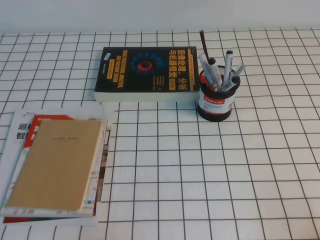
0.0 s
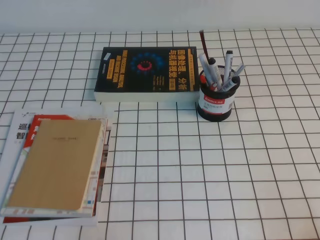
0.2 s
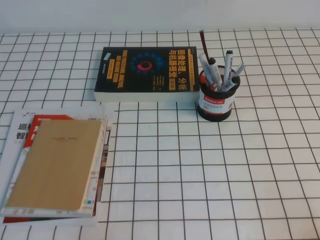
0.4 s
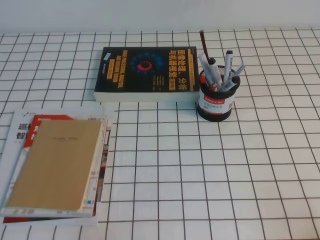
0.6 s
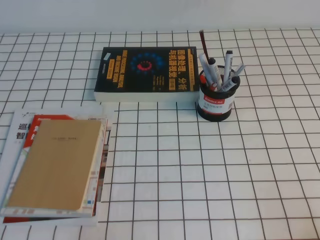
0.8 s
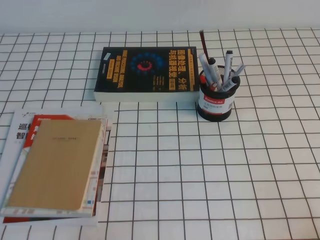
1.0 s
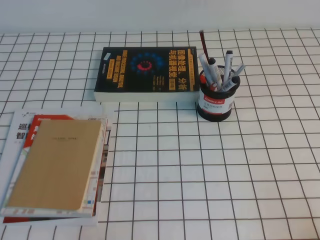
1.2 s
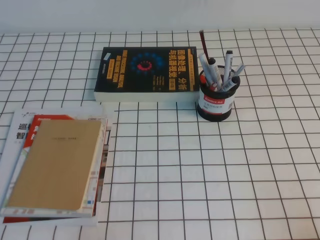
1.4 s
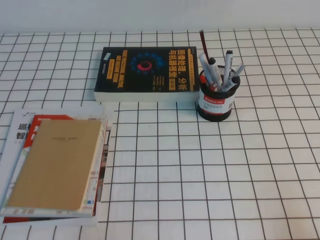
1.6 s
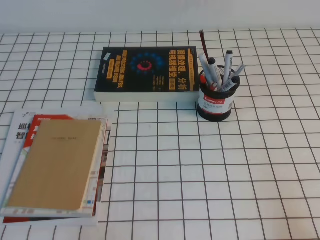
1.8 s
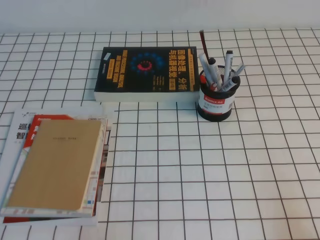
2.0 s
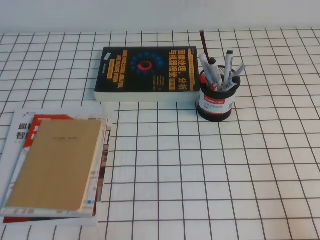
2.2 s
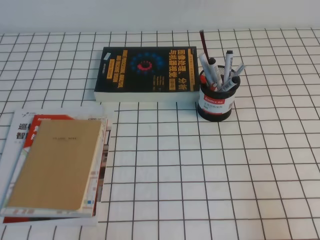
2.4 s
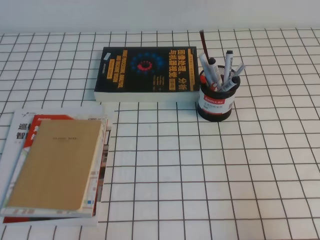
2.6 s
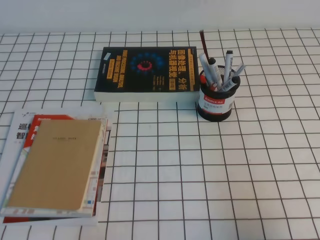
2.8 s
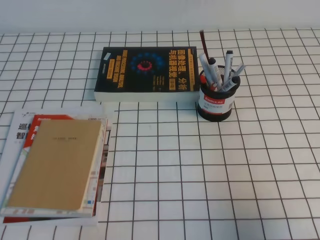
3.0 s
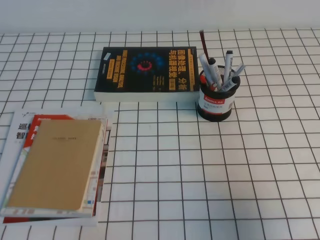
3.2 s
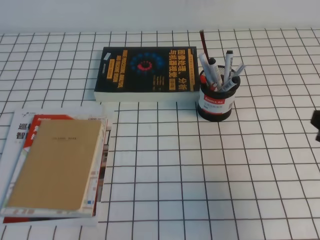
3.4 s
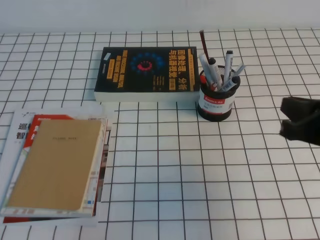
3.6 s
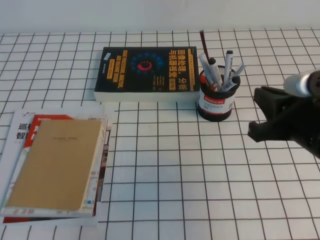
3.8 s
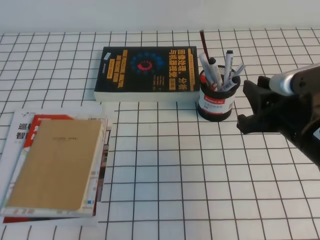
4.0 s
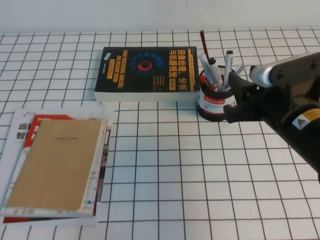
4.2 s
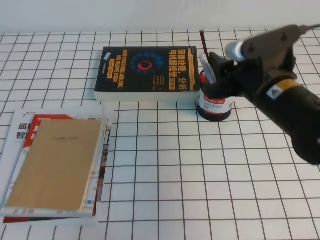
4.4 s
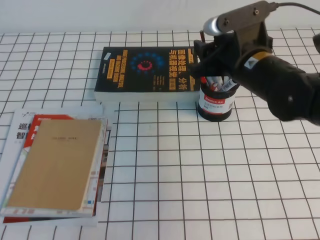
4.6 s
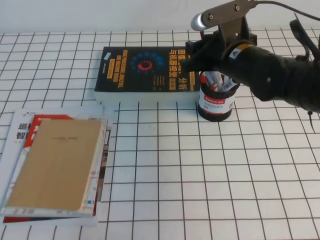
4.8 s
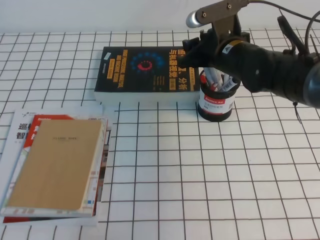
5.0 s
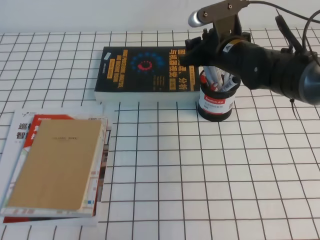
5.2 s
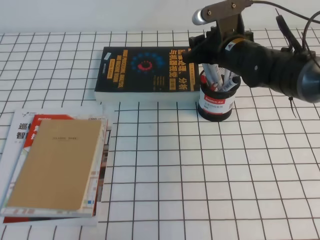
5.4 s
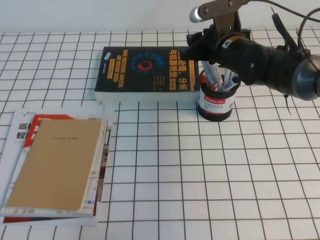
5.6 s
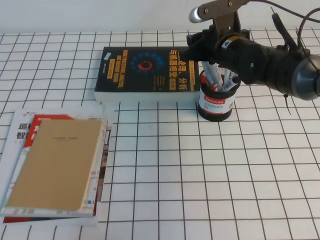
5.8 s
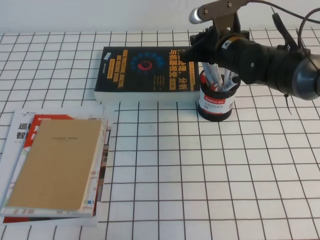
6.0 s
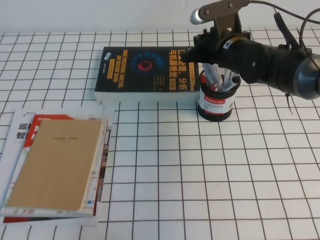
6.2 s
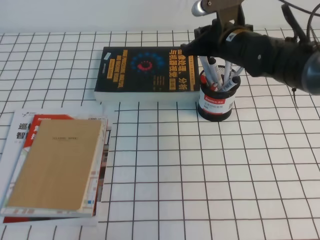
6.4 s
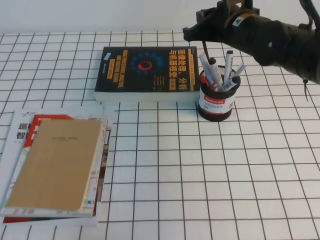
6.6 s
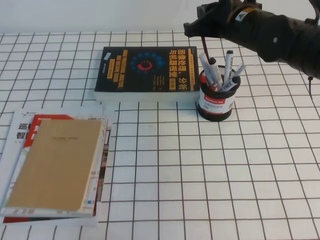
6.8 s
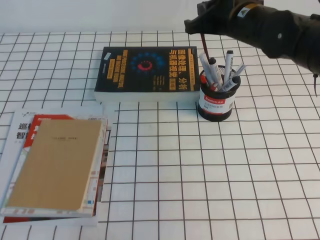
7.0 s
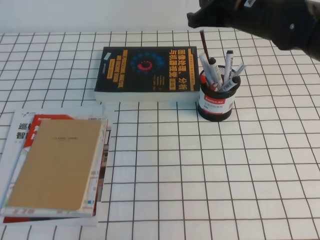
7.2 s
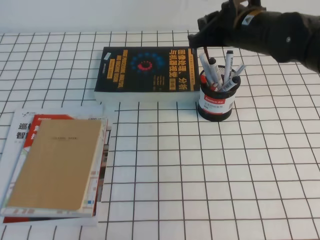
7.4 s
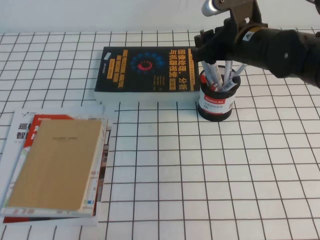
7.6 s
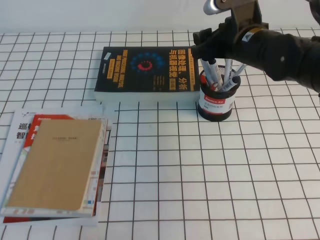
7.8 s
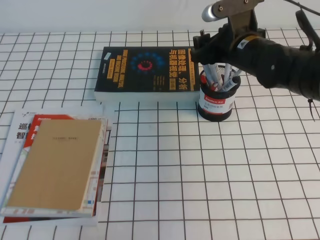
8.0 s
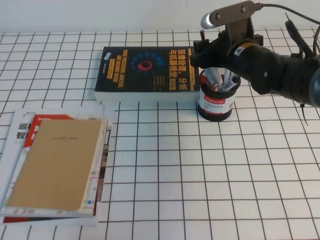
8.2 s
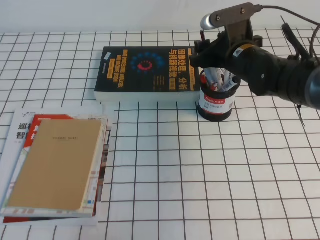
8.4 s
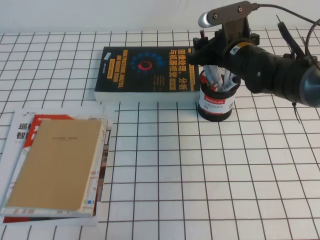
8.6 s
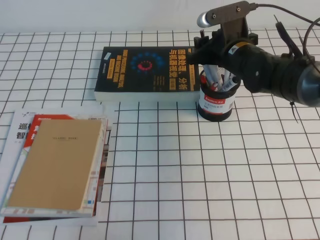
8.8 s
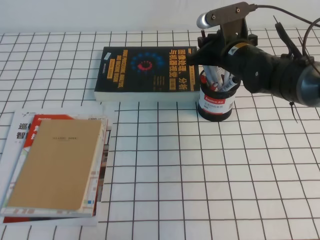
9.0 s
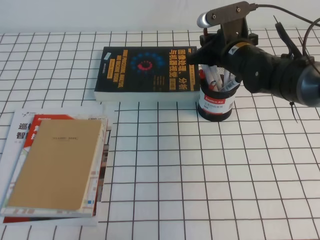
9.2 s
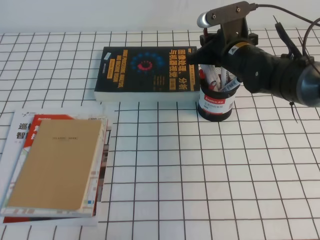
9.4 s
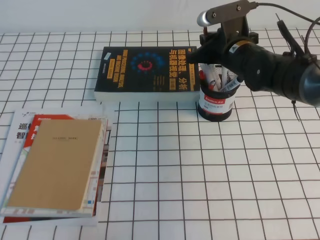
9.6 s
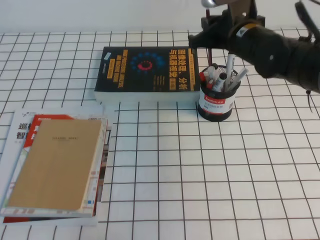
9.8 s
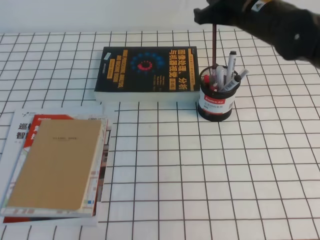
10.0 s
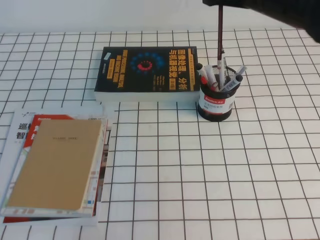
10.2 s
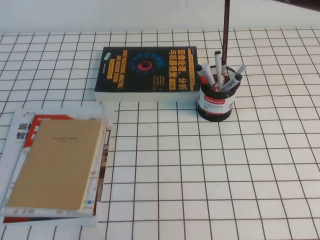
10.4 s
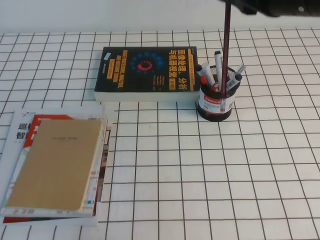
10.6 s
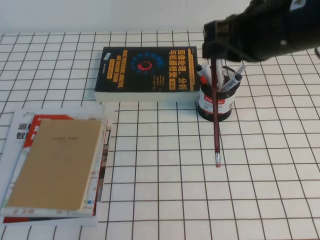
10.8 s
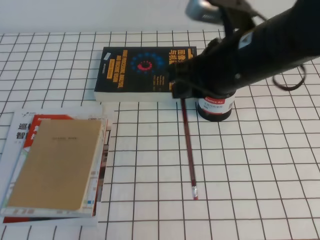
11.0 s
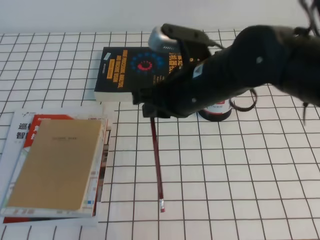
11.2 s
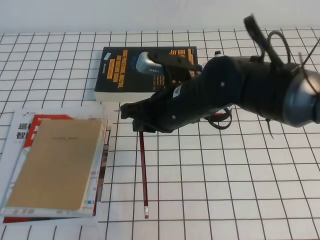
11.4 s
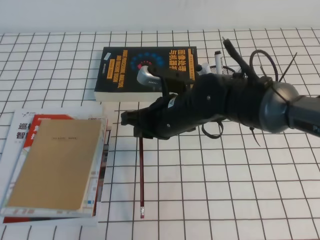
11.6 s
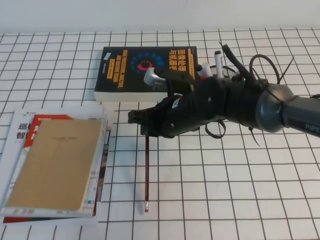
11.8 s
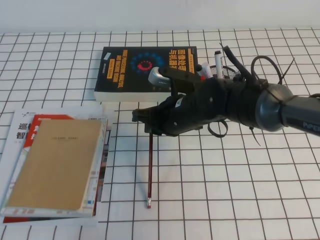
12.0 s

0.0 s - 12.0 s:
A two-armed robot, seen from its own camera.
1.6 s - 3.0 s: The right gripper is displaced upward and forward by about 10 cm.
3.0 s - 4.4 s: The right gripper moves to the left and forward, some 20 cm, and opens its fingers.
4.4 s - 6.0 s: The right gripper is displaced forward by roughly 15 cm, and closes its fingers.
6.0 s - 7.6 s: The right gripper travels upward by about 5 cm.
7.6 s - 9.0 s: The right gripper moves downward, some 5 cm, and opens, then closes once more.
9.0 s - 10.4 s: The right gripper heads upward and backward, covering approximately 20 cm.
10.4 s - 12.0 s: The right gripper moves downward and to the left, some 25 cm.

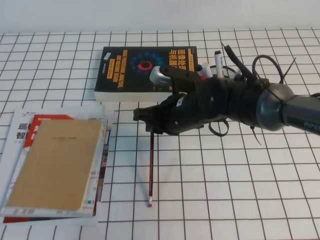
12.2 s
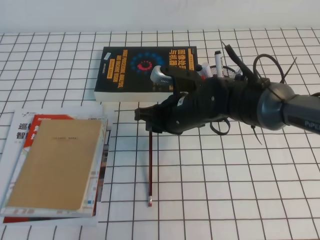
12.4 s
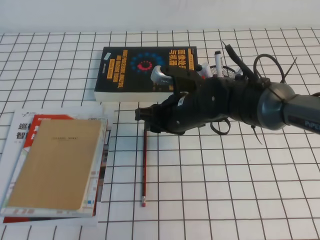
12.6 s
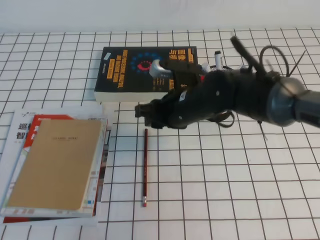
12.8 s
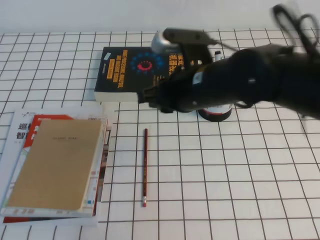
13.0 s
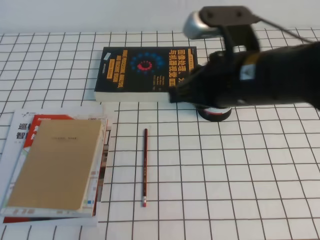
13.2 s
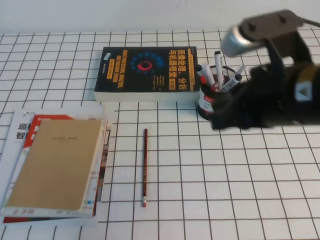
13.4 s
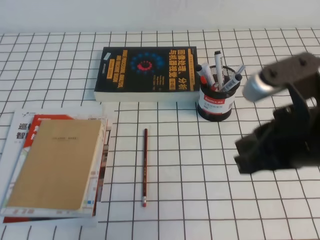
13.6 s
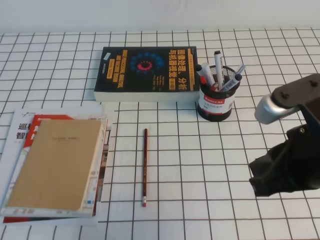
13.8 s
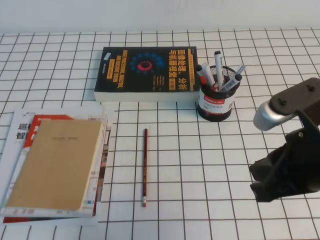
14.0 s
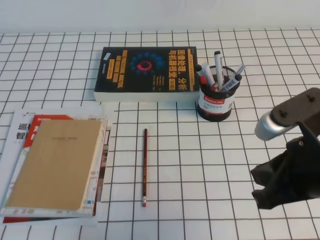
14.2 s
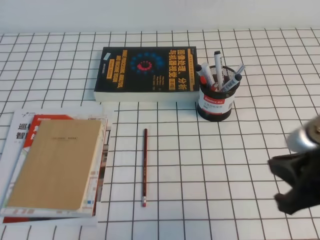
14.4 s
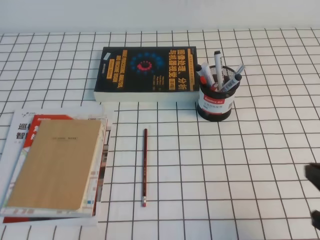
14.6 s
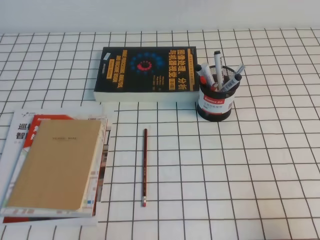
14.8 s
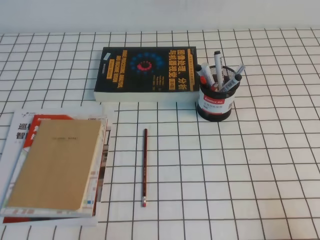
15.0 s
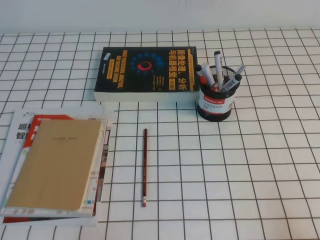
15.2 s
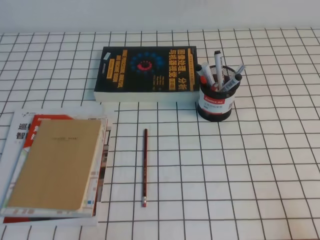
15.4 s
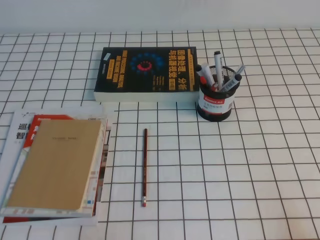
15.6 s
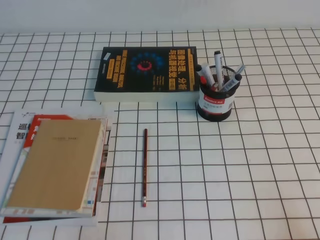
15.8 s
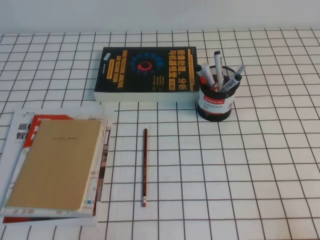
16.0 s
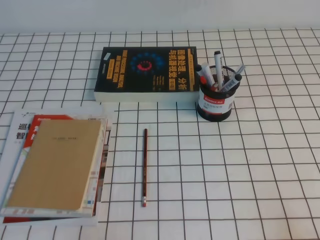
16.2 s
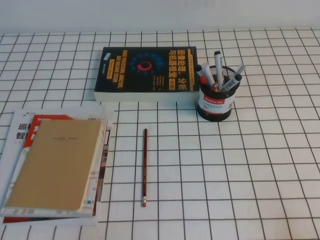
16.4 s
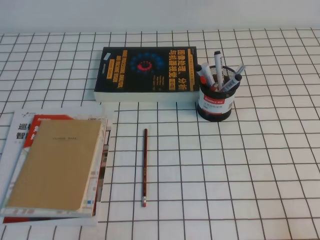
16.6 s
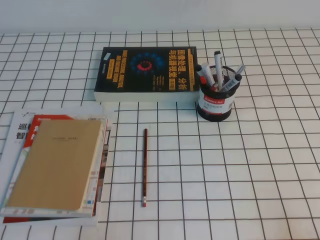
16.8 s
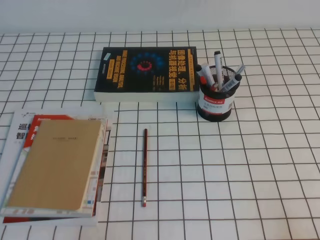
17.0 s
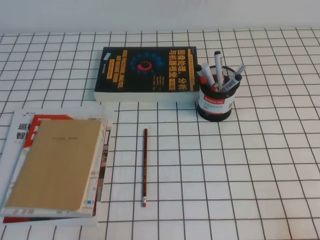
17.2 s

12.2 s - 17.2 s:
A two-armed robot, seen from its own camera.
Step, 12.2 s - 17.2 s: Pick up the pen from the pen holder.
12.2 s - 13.8 s: The right gripper shifts about 25 cm backward, to the right and upward.
13.8 s - 15.6 s: The right gripper moves downward, to the right and backward, approximately 25 cm.

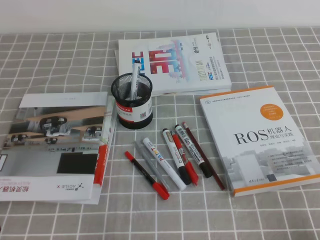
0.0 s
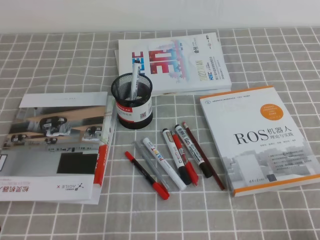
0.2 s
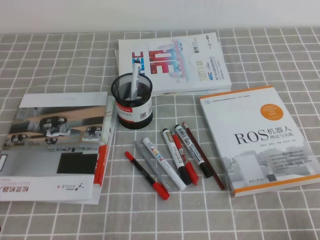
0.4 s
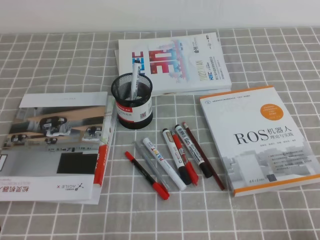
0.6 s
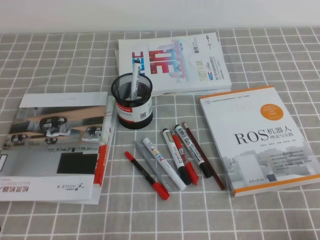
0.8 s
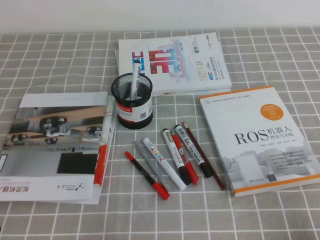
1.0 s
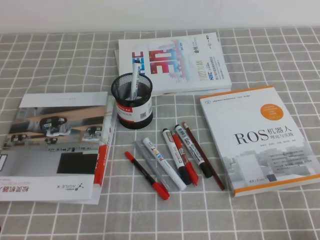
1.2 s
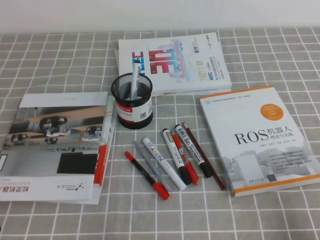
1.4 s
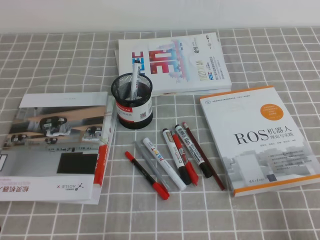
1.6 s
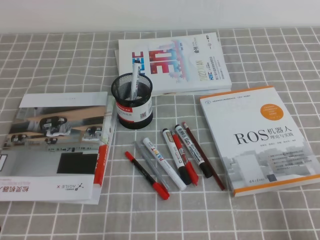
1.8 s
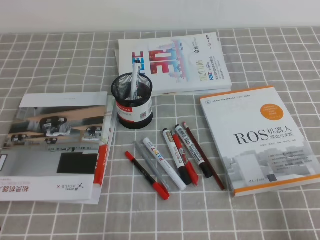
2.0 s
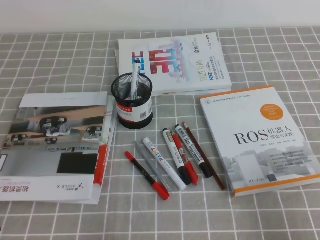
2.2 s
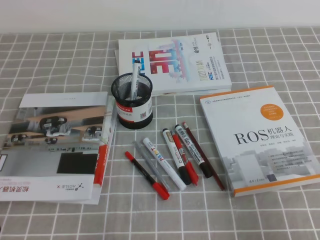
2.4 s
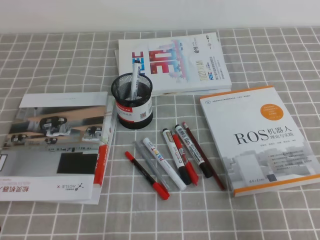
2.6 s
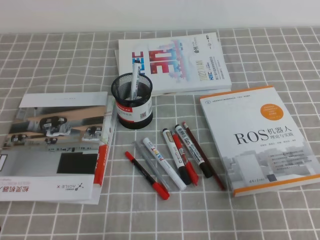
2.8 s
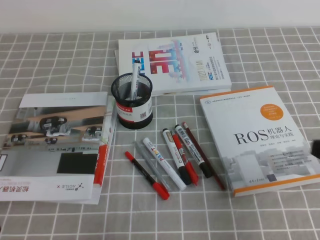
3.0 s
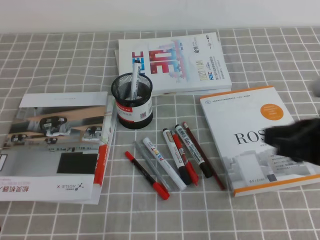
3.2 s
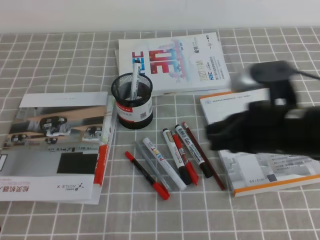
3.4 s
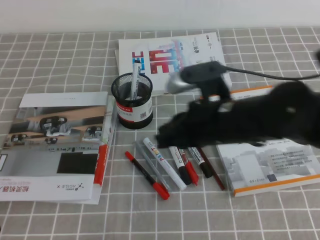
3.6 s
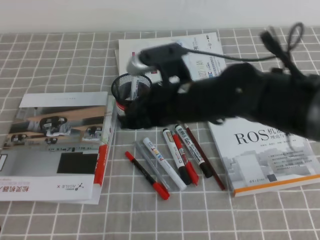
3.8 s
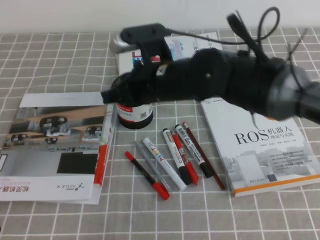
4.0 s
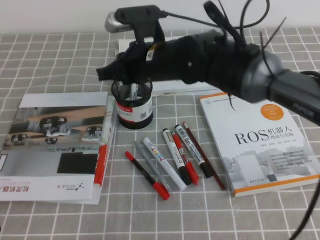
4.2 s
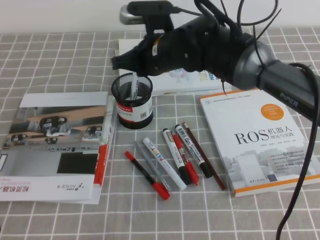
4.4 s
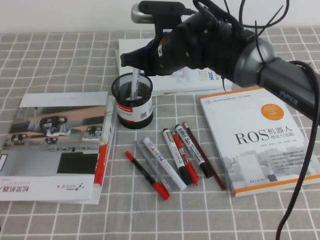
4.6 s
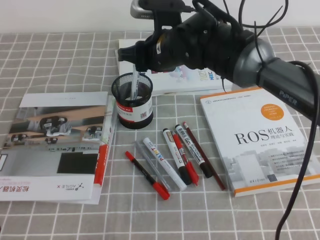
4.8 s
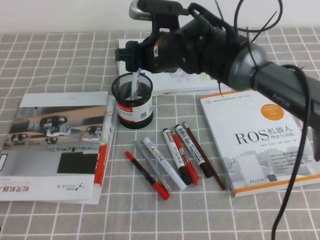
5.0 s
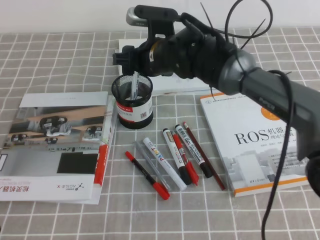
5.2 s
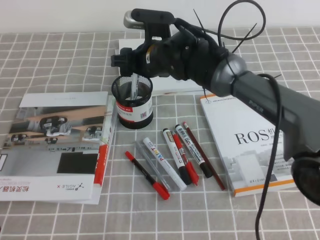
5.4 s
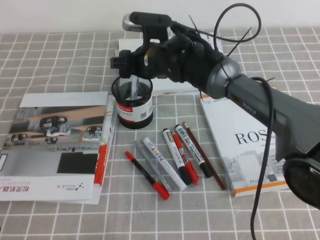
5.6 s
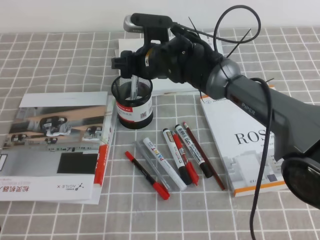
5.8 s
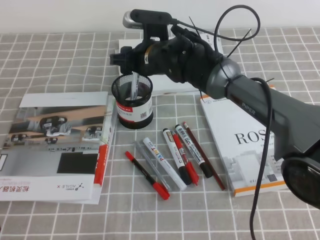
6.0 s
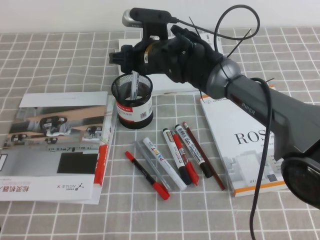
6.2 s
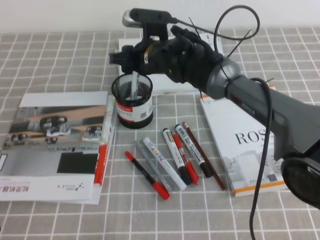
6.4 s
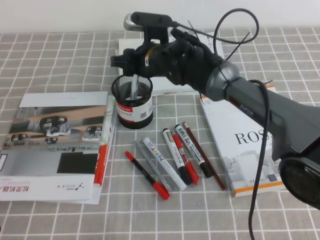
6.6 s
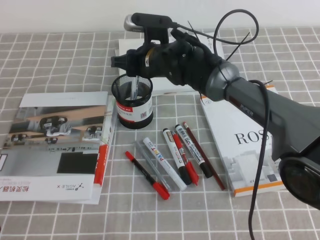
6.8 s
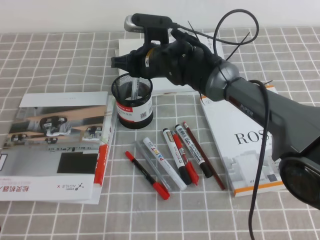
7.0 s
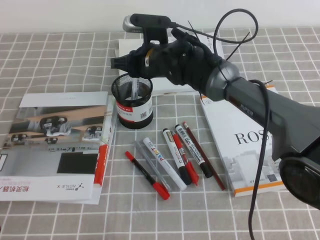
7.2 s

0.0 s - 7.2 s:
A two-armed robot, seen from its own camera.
1.4 s - 2.8 s: The right gripper moves upward and forward, approximately 10 cm.
2.8 s - 4.4 s: The right gripper heads to the left and forward, covering roughly 40 cm.
4.4 s - 5.8 s: The right gripper is displaced forward by about 5 cm, and opens its fingers.
5.8 s - 7.2 s: The right gripper closes up.
